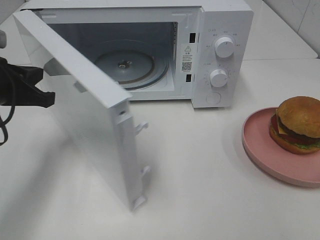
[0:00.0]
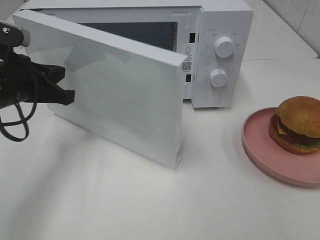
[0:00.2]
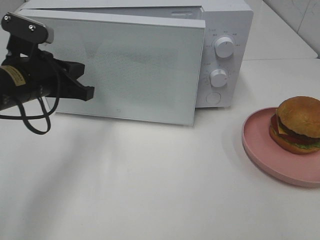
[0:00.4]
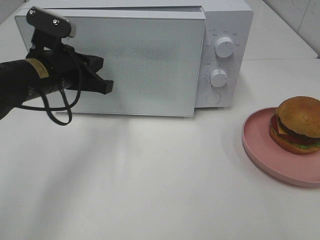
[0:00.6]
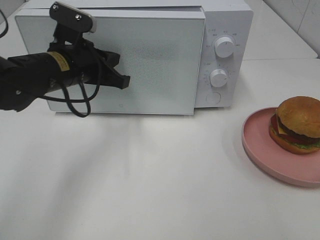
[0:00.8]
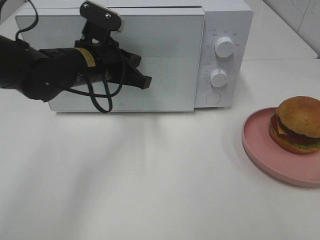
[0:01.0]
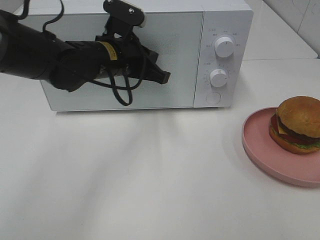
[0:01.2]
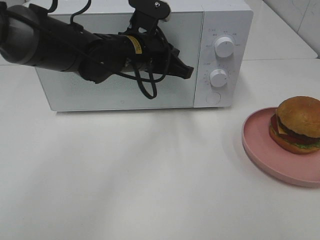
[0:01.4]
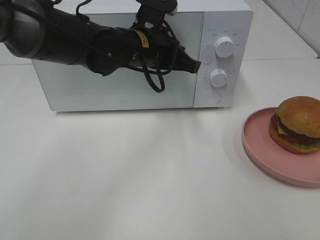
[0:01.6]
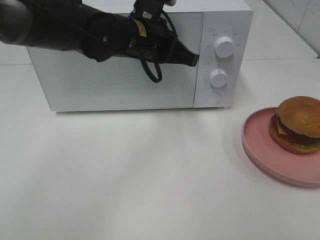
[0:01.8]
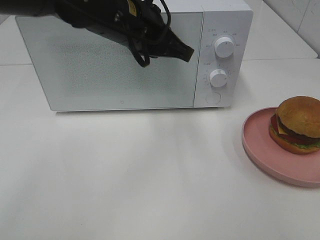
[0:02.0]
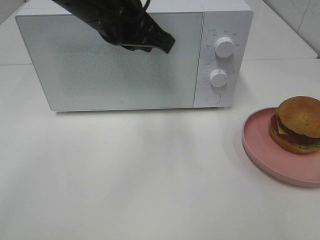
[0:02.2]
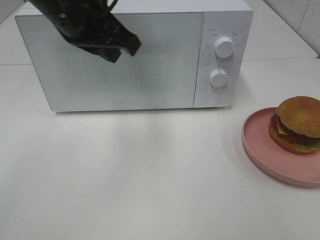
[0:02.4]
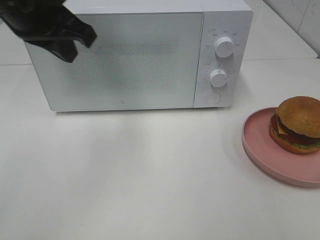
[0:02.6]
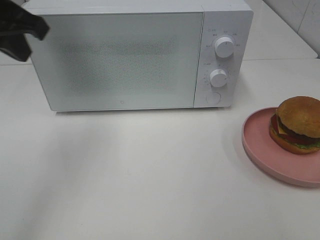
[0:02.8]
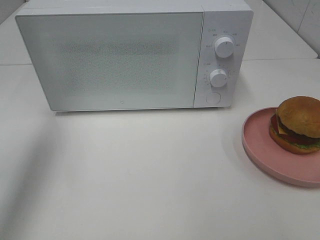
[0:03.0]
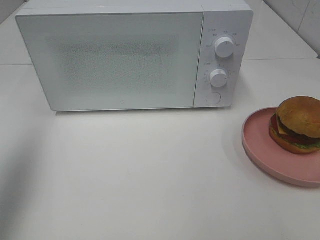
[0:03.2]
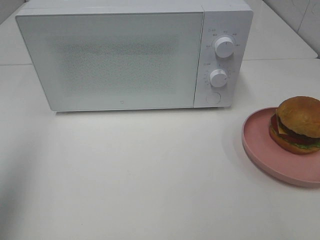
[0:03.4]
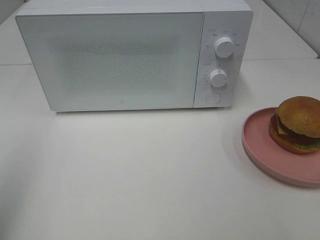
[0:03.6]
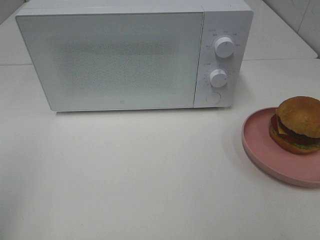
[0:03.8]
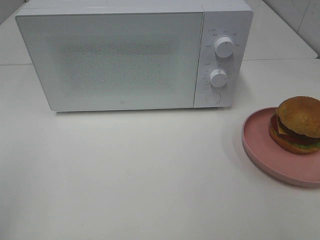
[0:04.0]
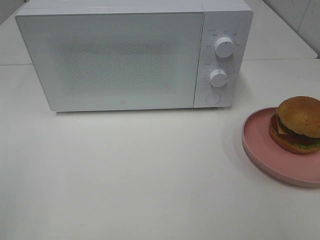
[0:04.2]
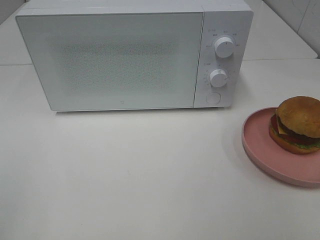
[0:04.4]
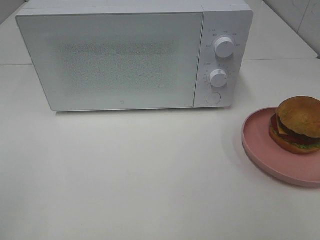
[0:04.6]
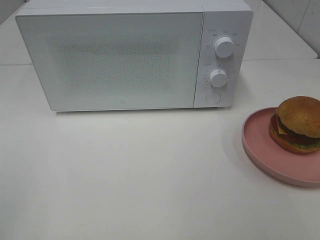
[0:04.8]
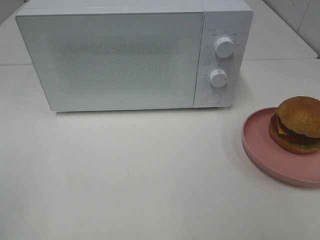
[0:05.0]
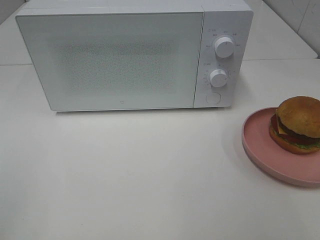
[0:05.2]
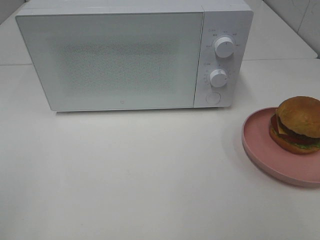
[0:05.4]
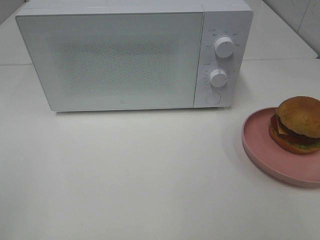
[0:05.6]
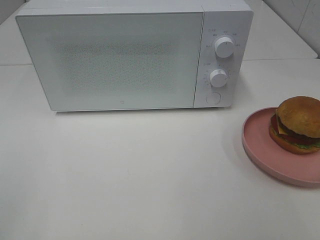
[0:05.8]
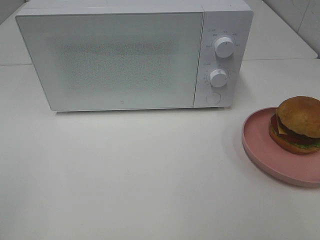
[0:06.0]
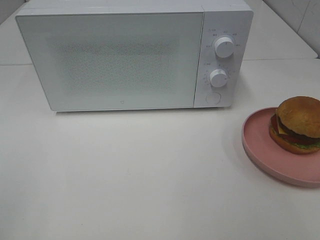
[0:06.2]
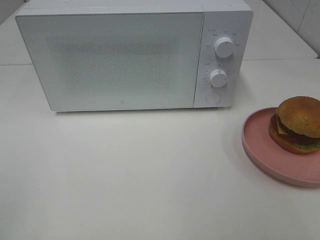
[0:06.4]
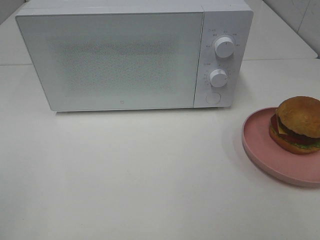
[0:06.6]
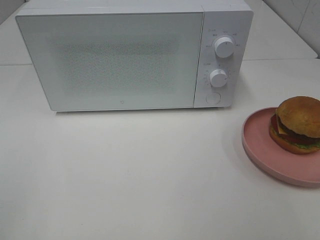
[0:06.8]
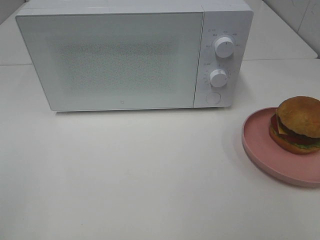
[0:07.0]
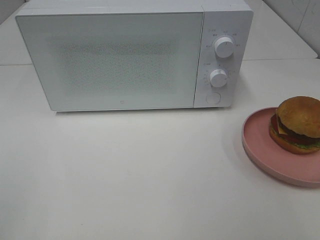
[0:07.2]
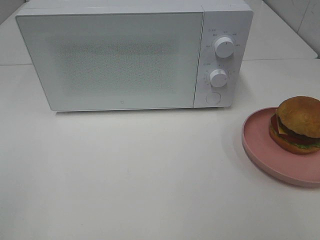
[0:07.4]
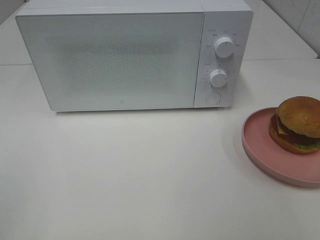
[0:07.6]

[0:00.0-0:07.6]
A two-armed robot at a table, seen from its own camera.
Task of the whole recording: Heat the burger.
0:00.0 to 0:01.6: The left gripper travels to the right and forward by approximately 25 cm.
0:01.6 to 0:03.0: The left gripper heads to the left and upward, covering about 30 cm.
0:03.0 to 0:04.6: The left gripper shifts roughly 25 cm backward.
0:04.6 to 0:07.6: Neither gripper changes place.

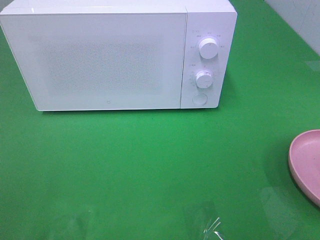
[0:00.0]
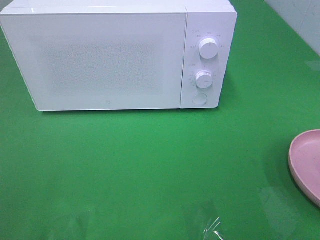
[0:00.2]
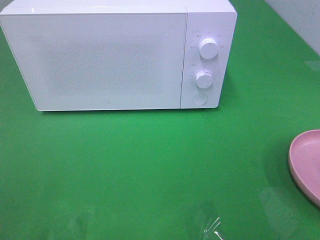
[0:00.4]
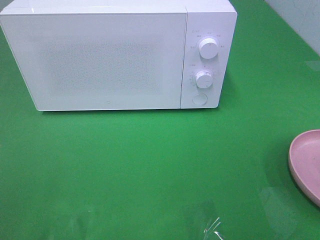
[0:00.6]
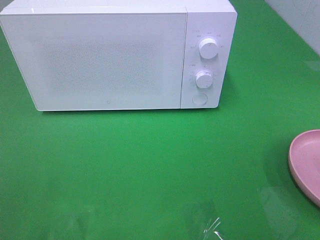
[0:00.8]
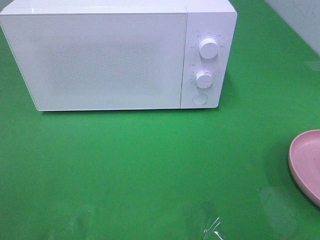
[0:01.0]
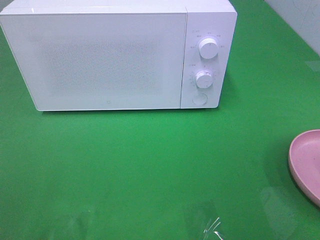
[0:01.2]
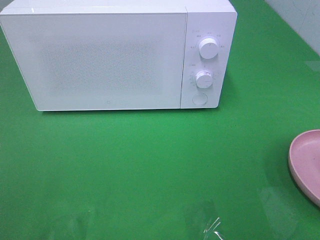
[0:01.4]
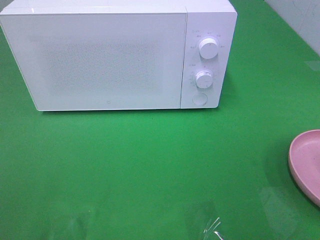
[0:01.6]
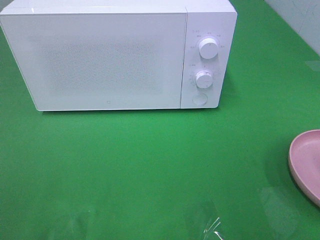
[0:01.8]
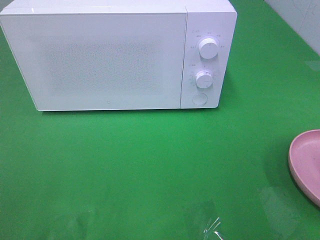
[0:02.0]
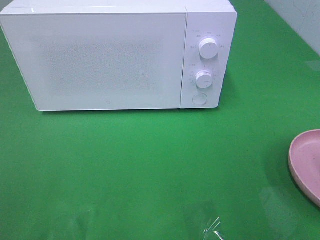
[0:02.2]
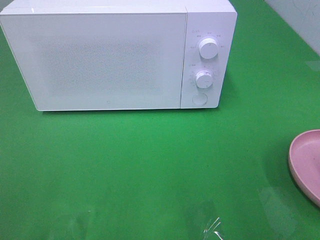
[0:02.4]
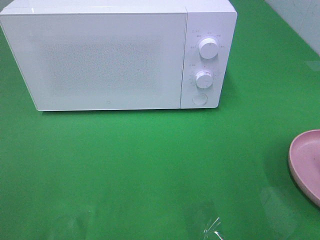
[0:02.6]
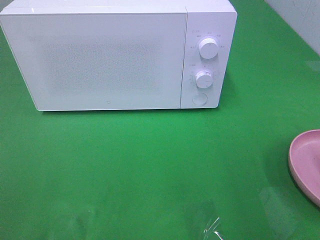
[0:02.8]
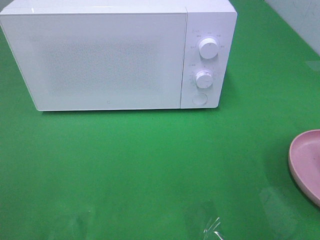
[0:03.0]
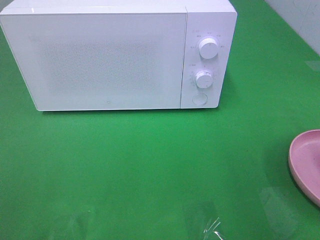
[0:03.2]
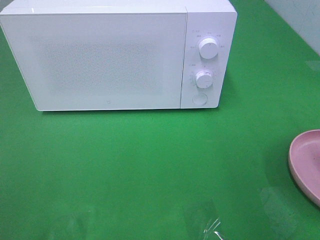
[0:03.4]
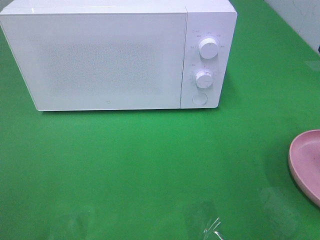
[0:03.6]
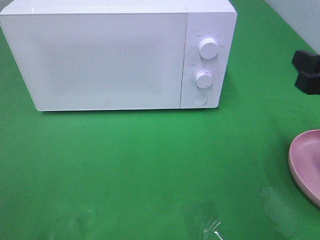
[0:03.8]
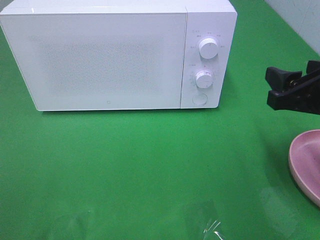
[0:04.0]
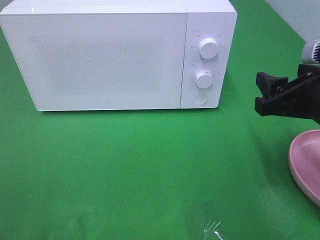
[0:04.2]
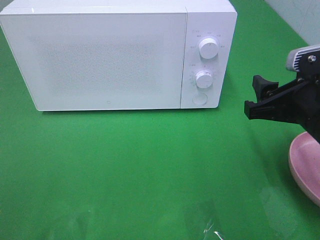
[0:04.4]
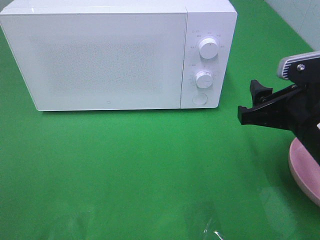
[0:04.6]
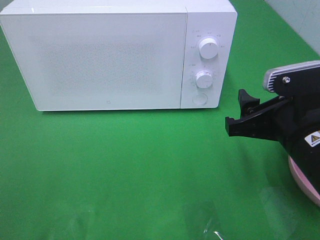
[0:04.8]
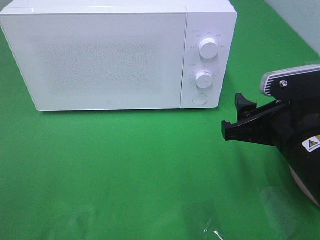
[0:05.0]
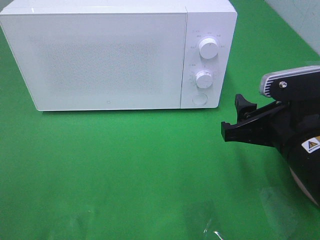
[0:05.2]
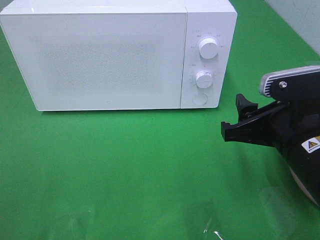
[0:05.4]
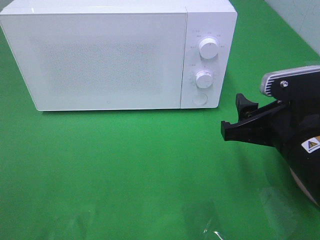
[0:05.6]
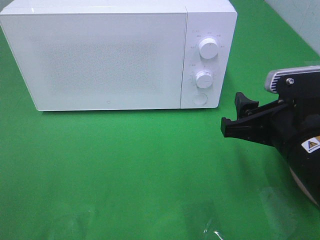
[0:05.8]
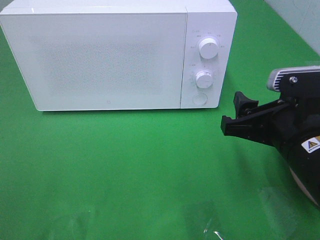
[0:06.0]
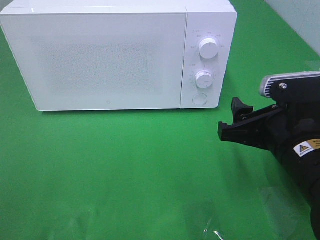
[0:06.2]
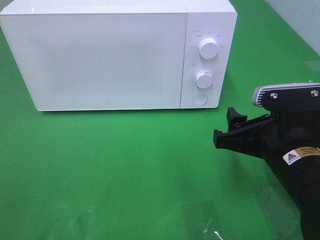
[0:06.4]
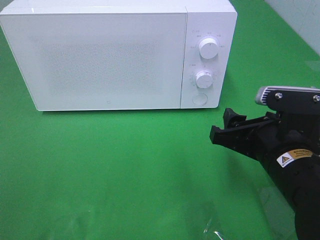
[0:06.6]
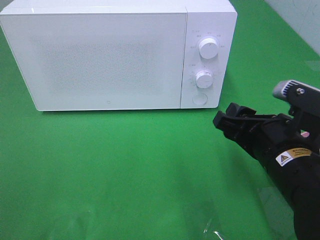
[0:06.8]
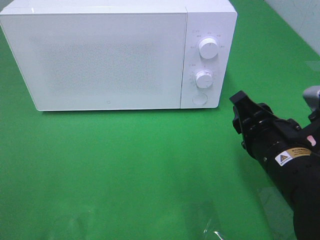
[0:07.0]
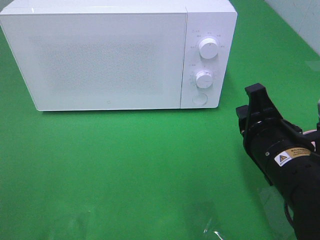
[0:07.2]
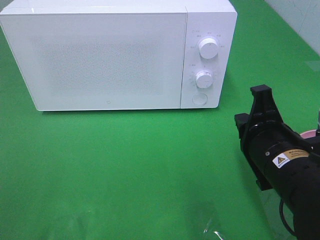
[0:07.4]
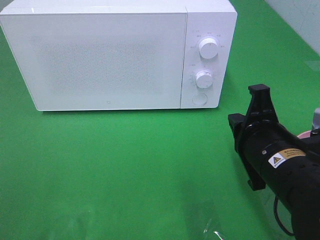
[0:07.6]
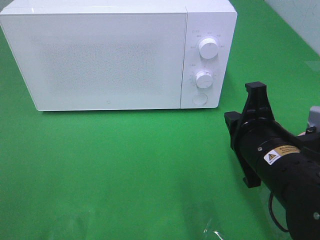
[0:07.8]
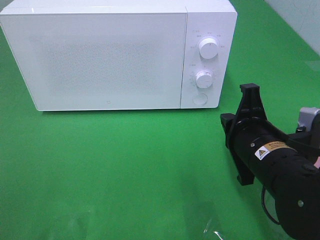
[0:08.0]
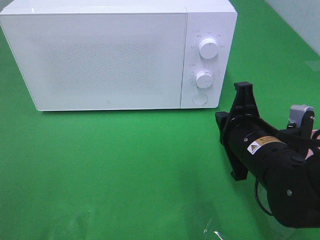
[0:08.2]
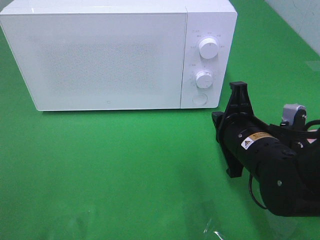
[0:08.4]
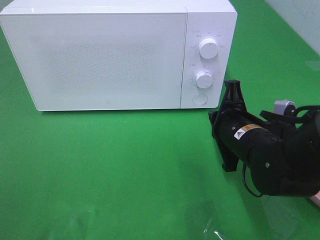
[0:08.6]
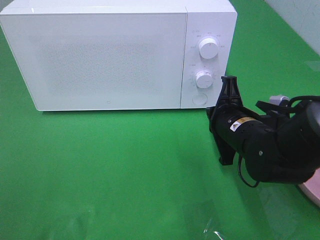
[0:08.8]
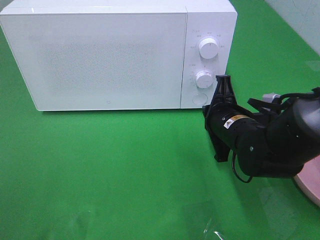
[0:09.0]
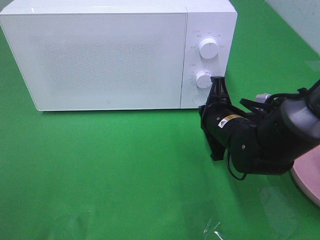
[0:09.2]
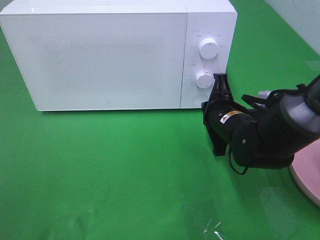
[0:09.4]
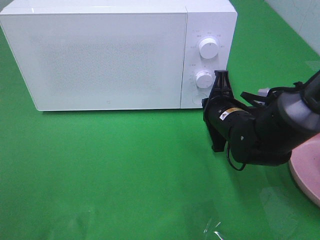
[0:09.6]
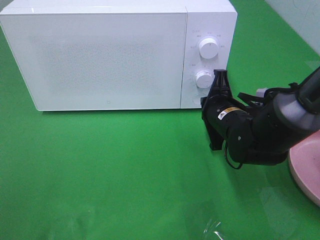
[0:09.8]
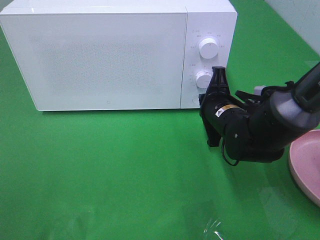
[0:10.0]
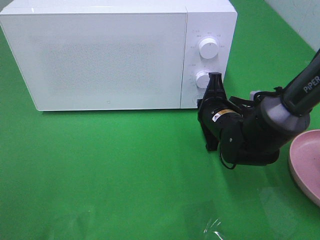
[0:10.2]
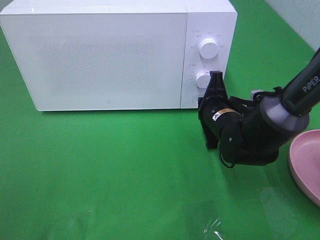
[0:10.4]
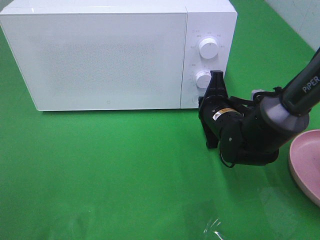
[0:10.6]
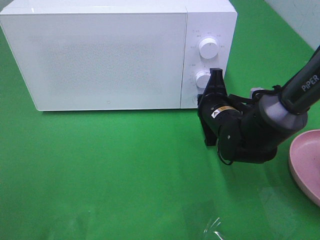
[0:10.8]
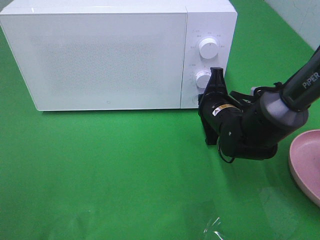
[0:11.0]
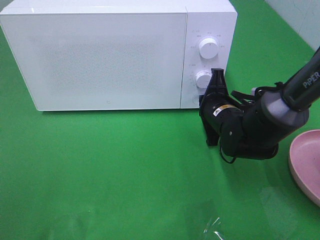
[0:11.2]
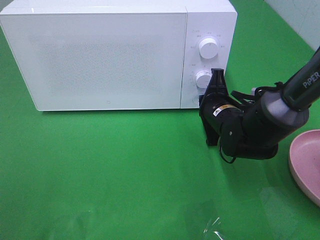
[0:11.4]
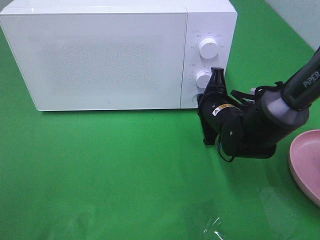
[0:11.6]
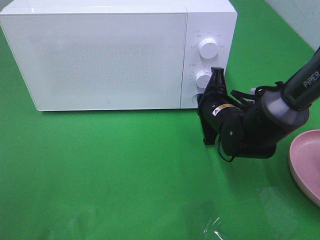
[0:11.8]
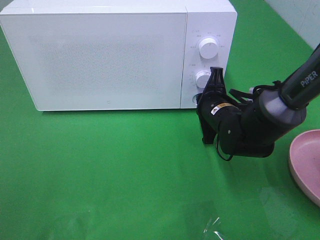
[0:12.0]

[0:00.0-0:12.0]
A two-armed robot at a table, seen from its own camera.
Task of the whole recording: Heat the burger.
0:03.0 to 0:04.4: The right gripper travels to the left, downward and forward by approximately 10 cm.
0:04.4 to 0:06.0: The grippers make only small movements.
0:06.0 to 0:07.6: The right gripper closes.
0:07.6 to 0:09.0: The right gripper goes about 10 cm forward.
0:09.0 to 0:12.0: The grippers make only small movements.

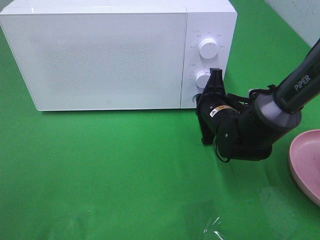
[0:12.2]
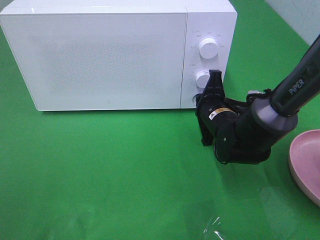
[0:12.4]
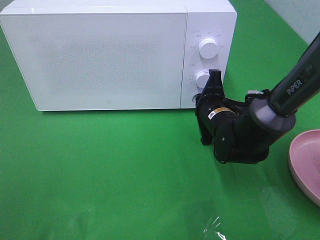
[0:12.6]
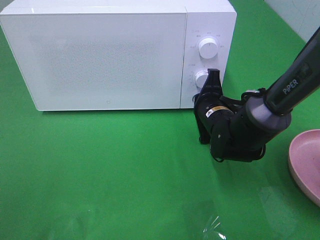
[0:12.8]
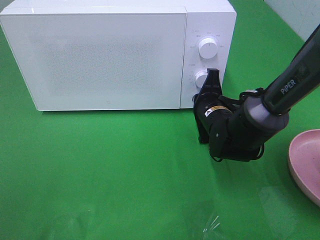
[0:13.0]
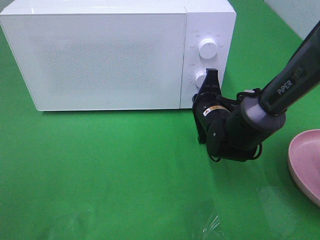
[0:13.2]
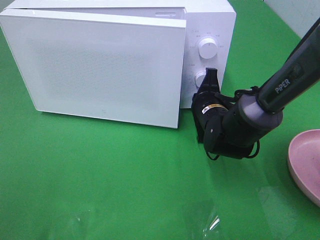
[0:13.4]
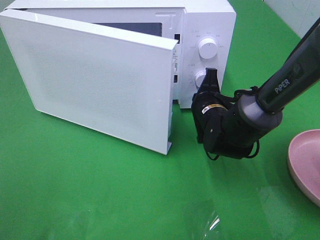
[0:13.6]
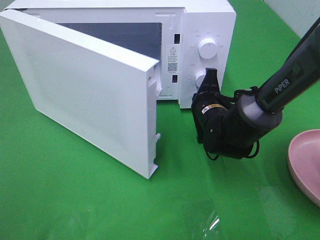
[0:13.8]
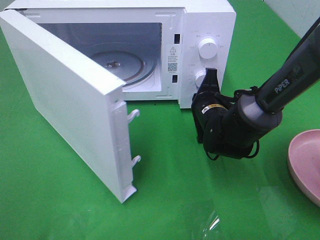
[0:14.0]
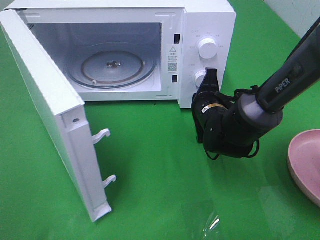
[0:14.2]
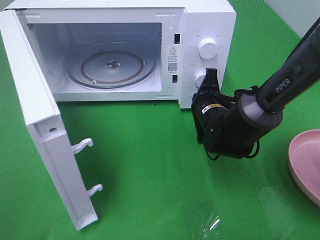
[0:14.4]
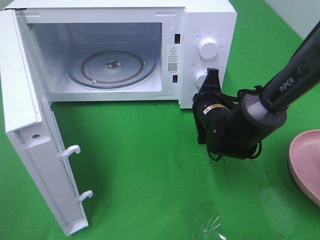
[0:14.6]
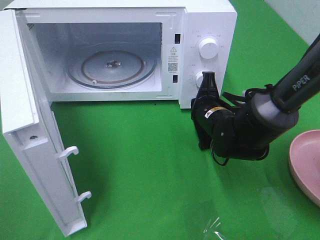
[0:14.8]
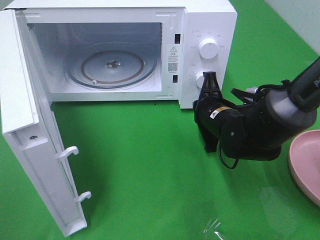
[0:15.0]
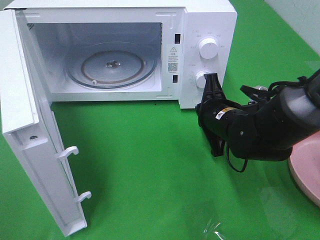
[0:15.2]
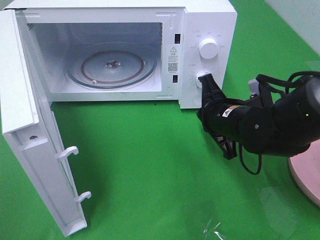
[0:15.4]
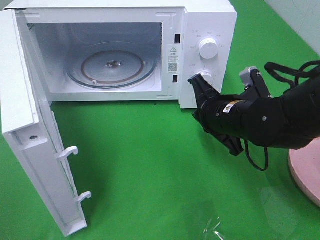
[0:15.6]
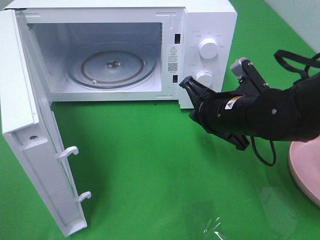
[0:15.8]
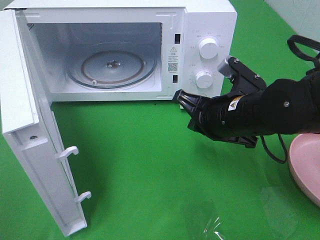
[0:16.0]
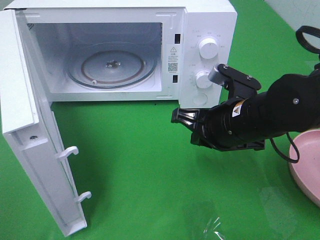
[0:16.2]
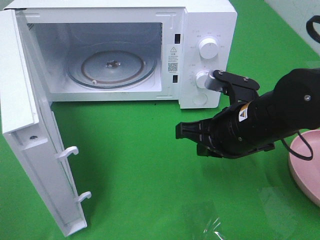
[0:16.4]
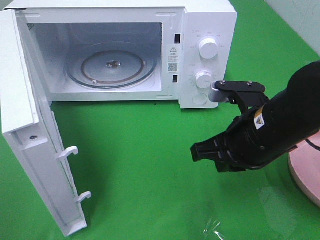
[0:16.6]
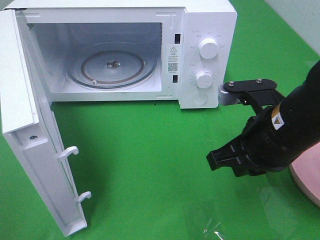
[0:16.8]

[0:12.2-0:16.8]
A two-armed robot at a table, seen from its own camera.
Task of the whole recording: Heat the burger.
Step, 0:12.2 to 0:15.4: Right hand: press the switch.
0:13.8 to 0:15.2: The right gripper ends up roughly 5 cm from where it was.
0:15.2 to 0:16.8: The right gripper shifts about 15 cm backward and upward.
